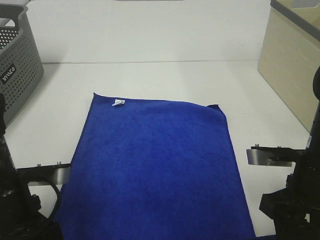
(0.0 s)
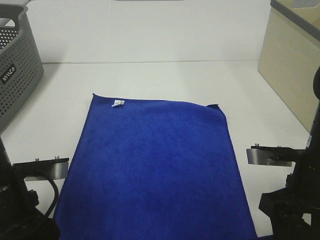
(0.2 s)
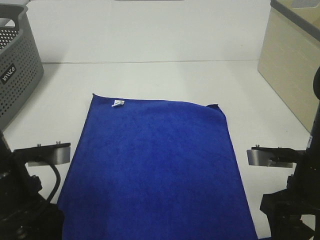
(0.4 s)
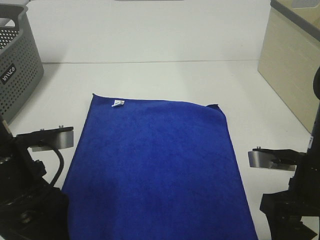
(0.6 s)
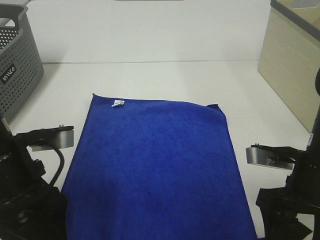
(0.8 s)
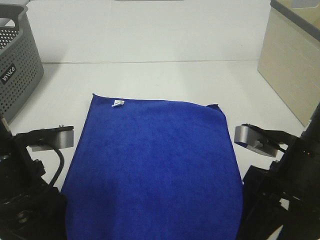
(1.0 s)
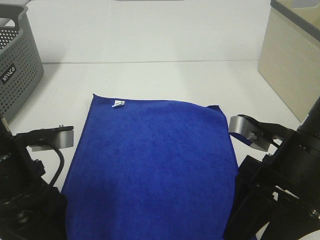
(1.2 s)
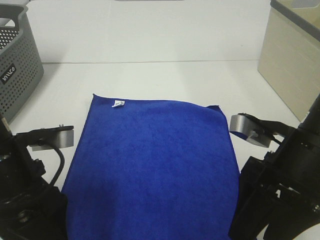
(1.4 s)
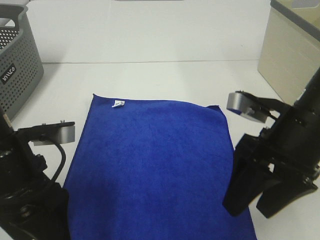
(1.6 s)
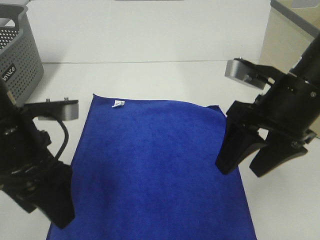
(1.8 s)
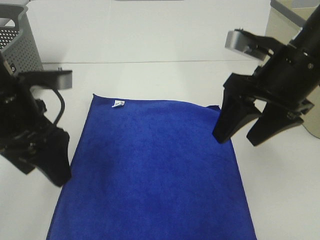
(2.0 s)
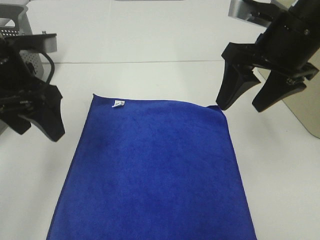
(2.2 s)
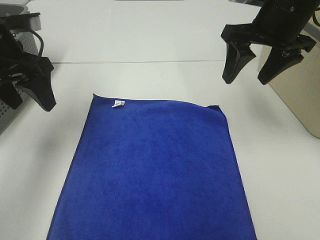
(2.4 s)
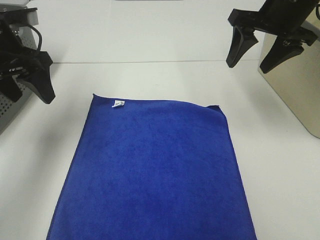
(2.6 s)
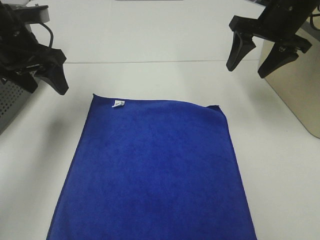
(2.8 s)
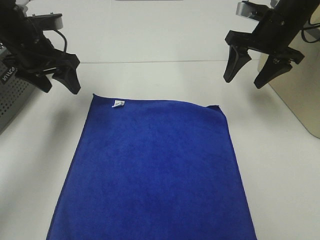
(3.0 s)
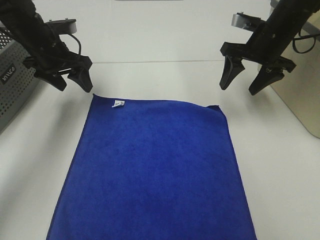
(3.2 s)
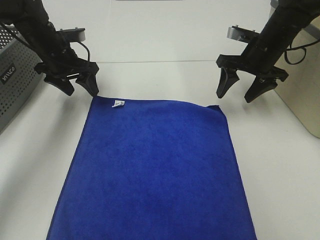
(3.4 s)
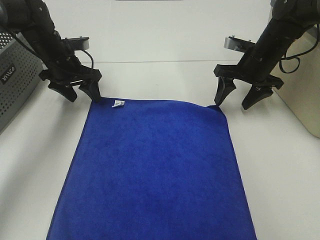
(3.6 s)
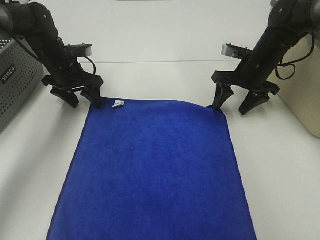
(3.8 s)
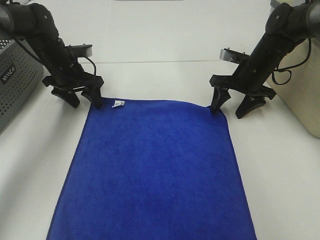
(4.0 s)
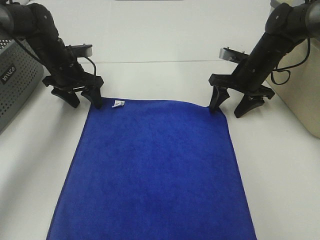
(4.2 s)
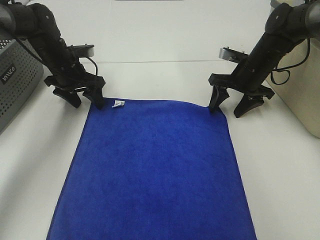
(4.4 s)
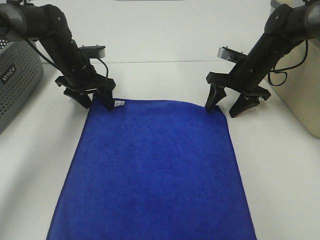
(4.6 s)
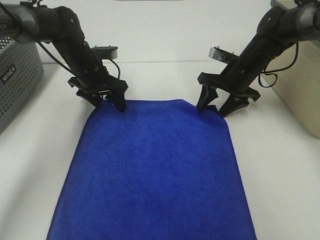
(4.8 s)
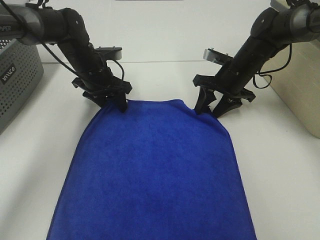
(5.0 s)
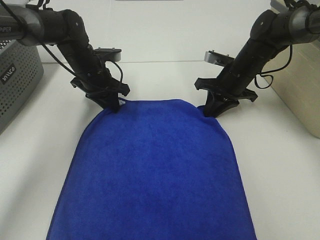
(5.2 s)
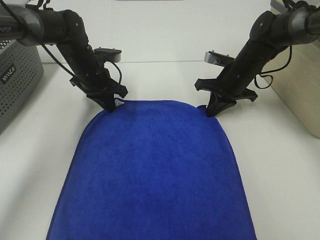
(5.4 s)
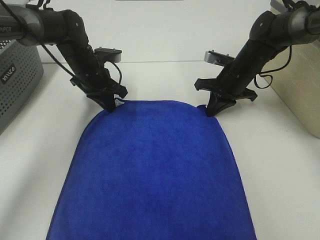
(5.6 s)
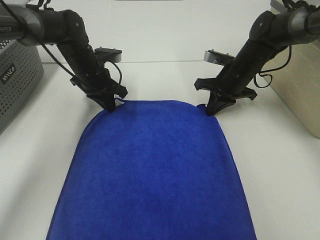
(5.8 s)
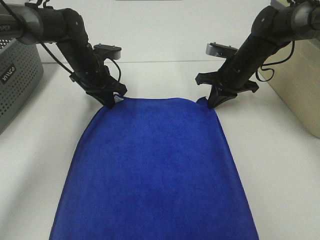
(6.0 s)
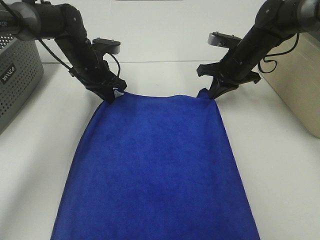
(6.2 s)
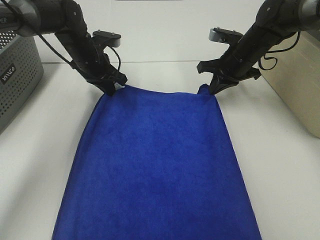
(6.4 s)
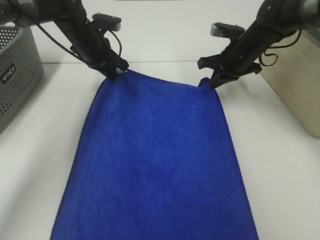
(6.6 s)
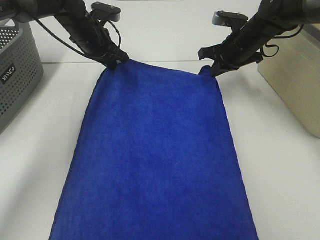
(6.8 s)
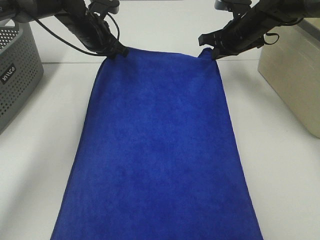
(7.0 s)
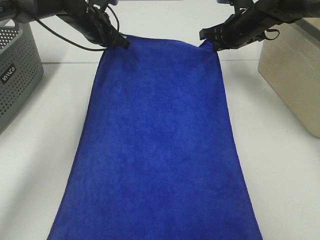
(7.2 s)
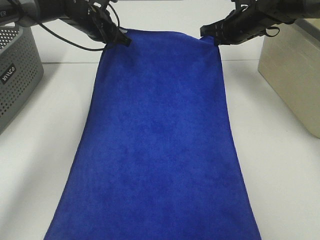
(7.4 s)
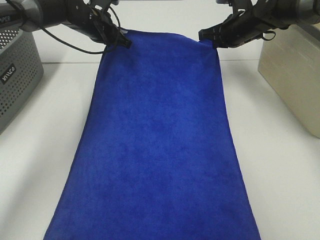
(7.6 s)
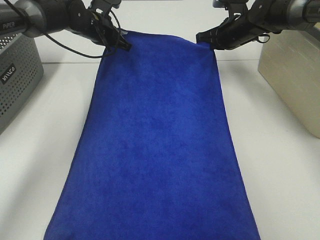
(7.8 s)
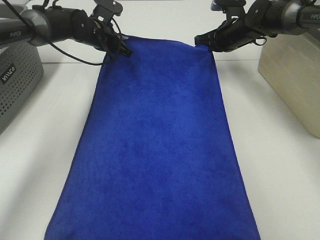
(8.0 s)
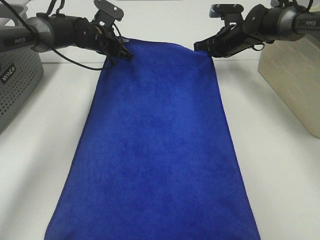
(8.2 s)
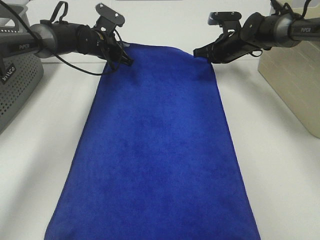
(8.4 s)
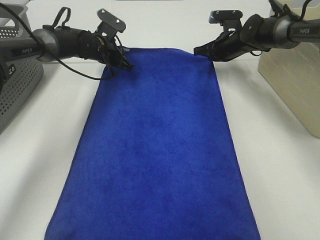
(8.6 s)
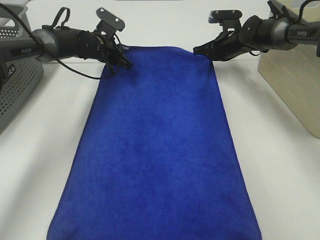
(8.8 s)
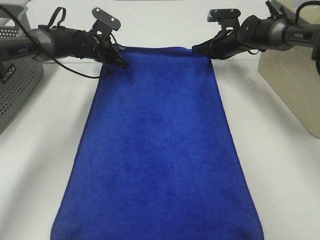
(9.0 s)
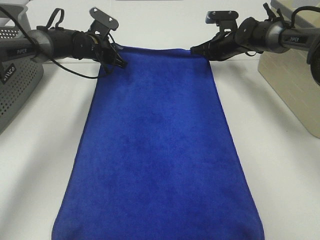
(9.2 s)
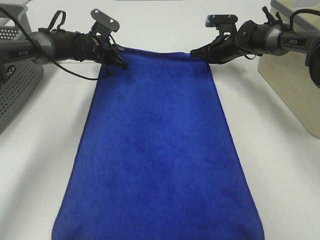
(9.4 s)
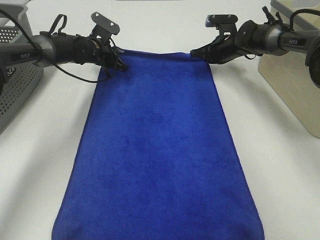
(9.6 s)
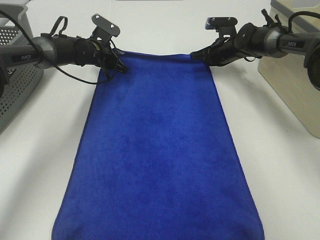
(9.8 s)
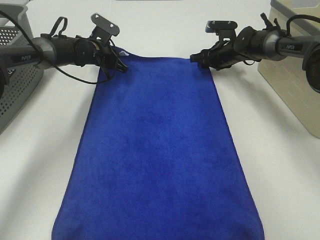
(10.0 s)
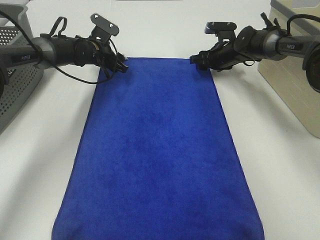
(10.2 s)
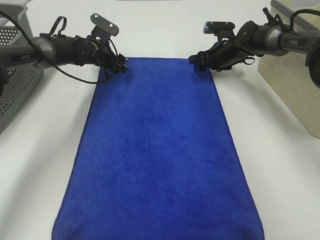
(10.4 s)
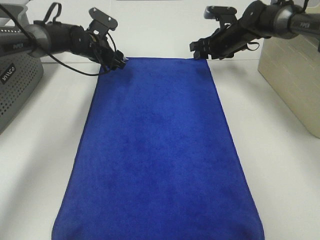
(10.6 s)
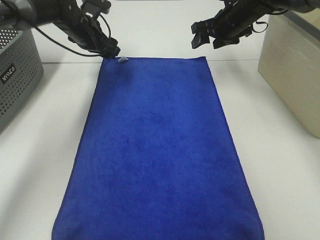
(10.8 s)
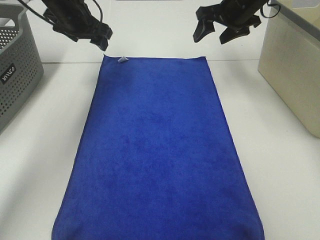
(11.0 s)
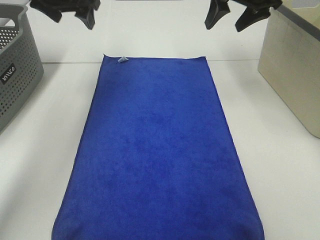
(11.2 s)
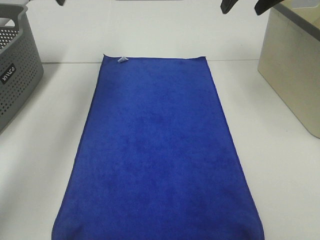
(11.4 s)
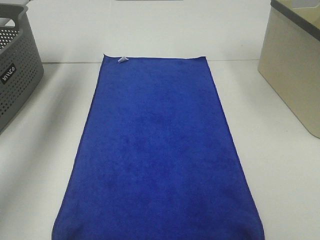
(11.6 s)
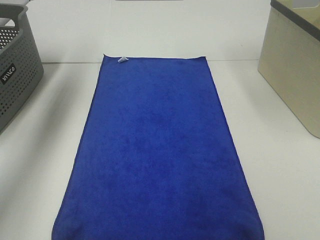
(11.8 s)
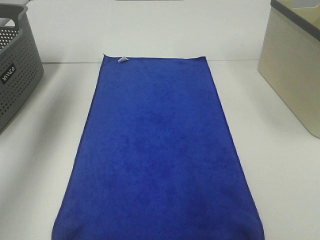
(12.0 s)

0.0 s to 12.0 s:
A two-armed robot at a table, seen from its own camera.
Task of the whole recording: Remove the towel and place it.
Step, 0.0 to 2.8 s: Left hand:adjust the blue towel.
Step, 0.0 to 2.8 s: Right hand:adjust the blue towel.
0.0 to 1.6 s: The right gripper heads upward, covering about 5 cm, while the left gripper ends up roughly 5 cm from where it was.
1.6 to 3.0 s: The grippers both shift forward by some 20 cm.
3.0 to 4.4 s: The right gripper is displaced downward by roughly 10 cm; the left gripper moves downward and forward, roughly 10 cm.
4.4 to 6.0 s: The right gripper closes; the left gripper is displaced to the right by approximately 5 cm, and closes.
6.0 to 7.6 s: The two grippers go some 10 cm forward and upward.
7.6 to 9.0 s: Both grippers travel together downward, some 5 cm.
9.0 to 10.4 s: The right gripper opens its fingers. Meanwhile the left gripper opens its fingers.
10.4 to 12.0 s: The right gripper heads upward and backward, covering some 40 cm. Meanwhile the left gripper is displaced upward, backward and to the left by roughly 35 cm.

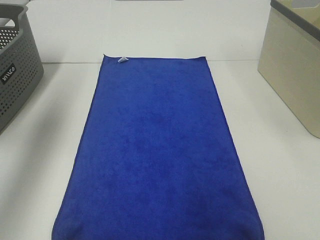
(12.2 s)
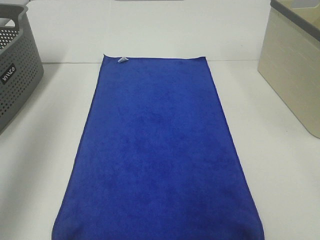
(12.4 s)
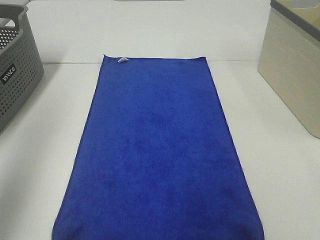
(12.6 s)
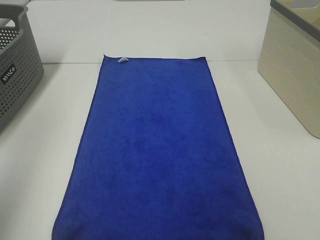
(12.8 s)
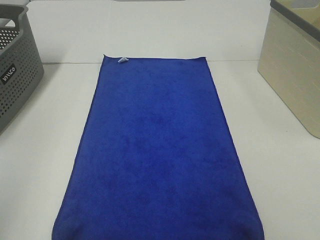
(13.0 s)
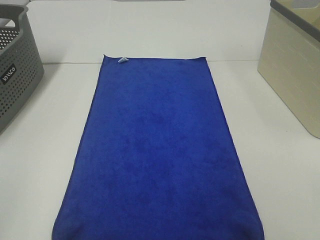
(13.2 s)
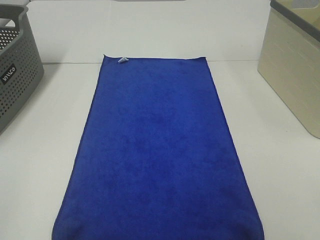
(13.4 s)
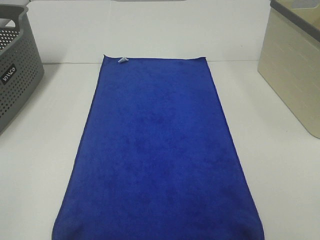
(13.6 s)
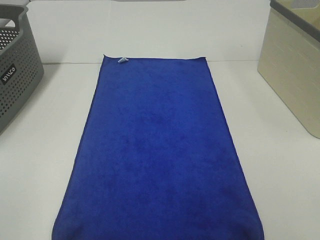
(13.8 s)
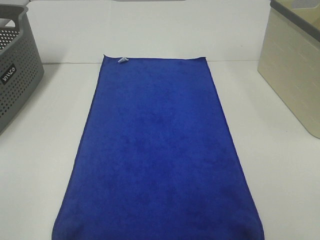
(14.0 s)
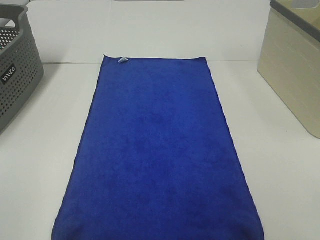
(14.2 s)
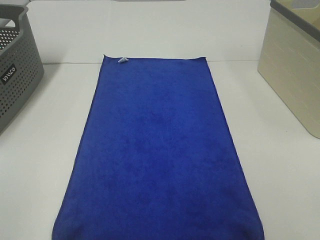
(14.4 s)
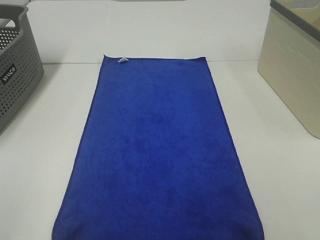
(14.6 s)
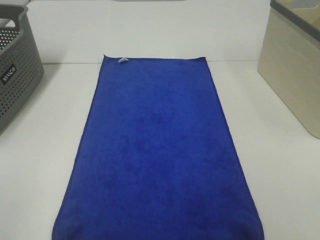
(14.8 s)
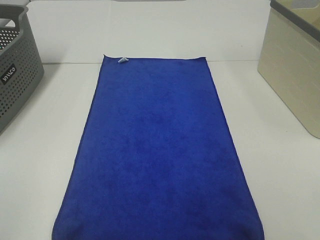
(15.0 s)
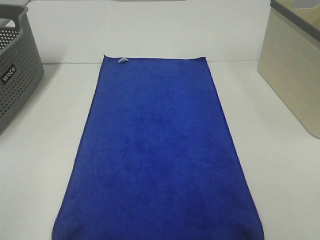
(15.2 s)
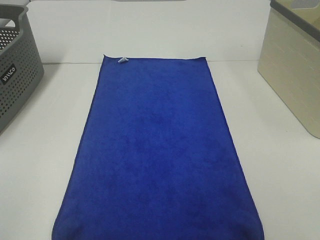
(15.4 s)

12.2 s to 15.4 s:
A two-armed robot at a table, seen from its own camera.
Task of the whole recording: Remove the towel and place it.
12.2 to 13.8 s: The left gripper travels backward by some 35 cm.

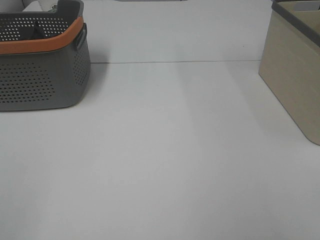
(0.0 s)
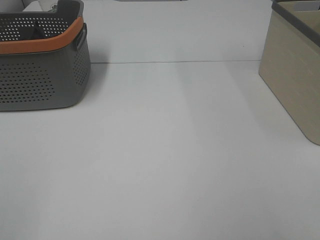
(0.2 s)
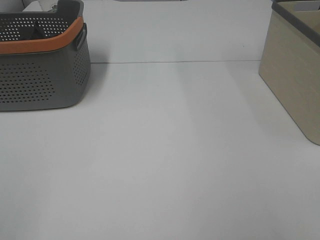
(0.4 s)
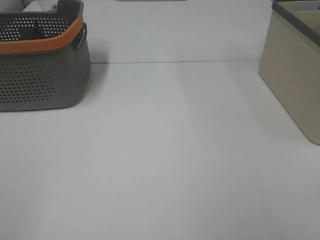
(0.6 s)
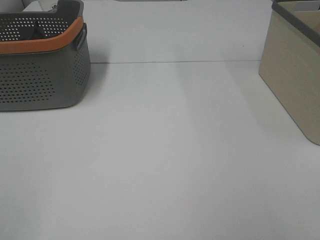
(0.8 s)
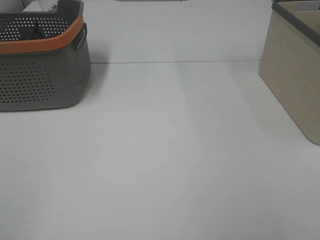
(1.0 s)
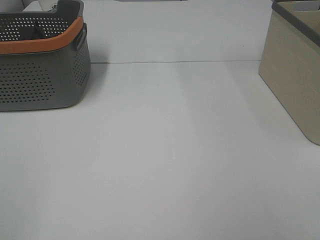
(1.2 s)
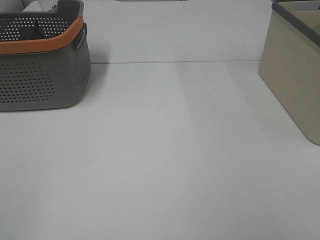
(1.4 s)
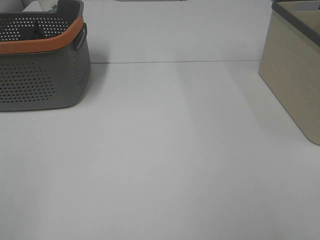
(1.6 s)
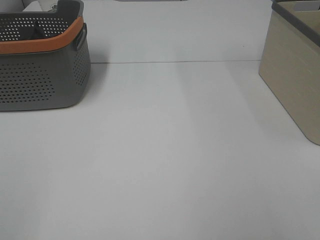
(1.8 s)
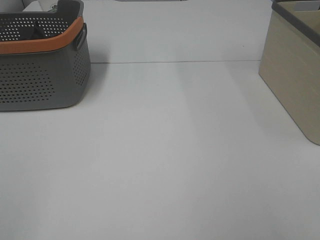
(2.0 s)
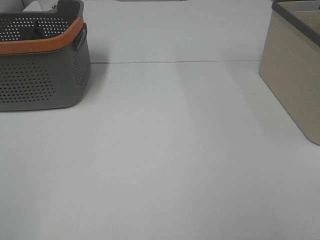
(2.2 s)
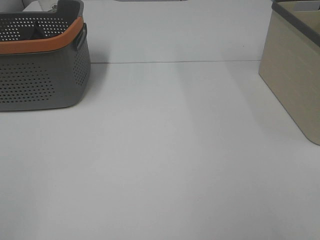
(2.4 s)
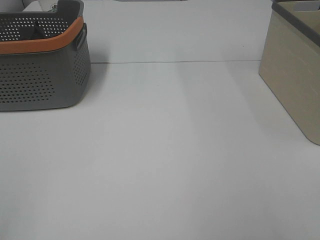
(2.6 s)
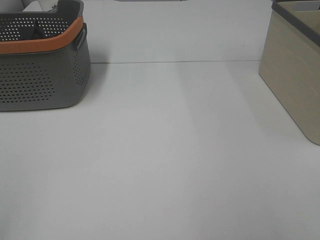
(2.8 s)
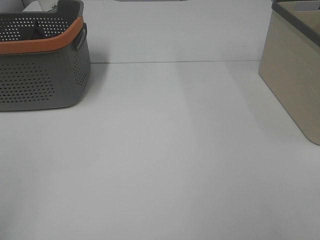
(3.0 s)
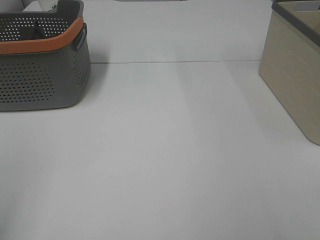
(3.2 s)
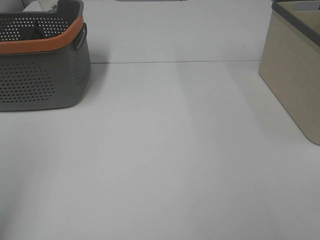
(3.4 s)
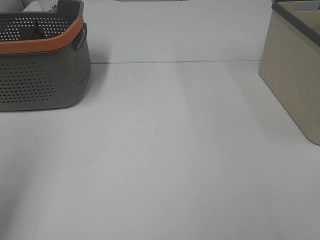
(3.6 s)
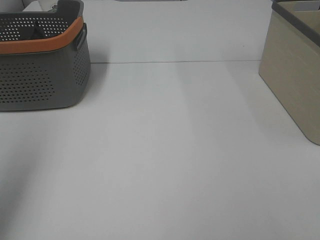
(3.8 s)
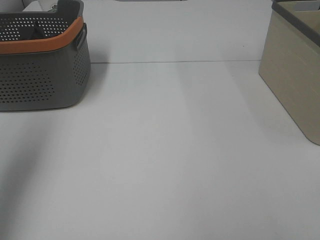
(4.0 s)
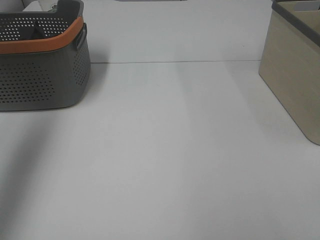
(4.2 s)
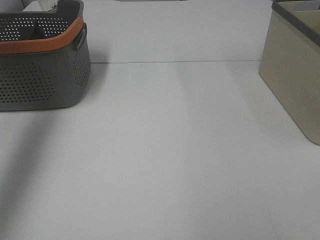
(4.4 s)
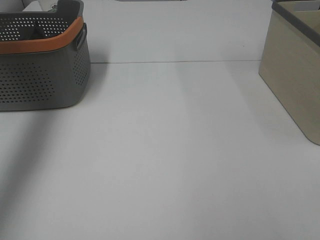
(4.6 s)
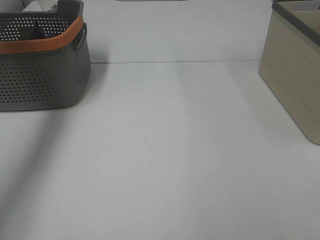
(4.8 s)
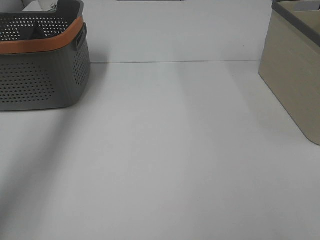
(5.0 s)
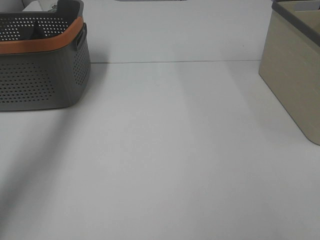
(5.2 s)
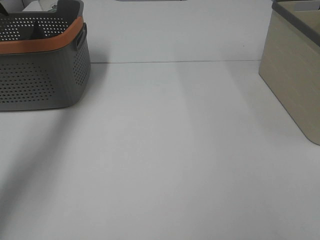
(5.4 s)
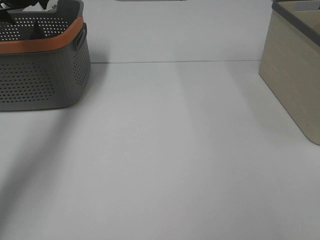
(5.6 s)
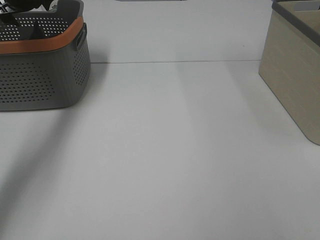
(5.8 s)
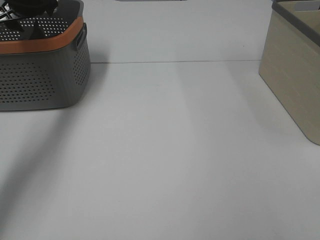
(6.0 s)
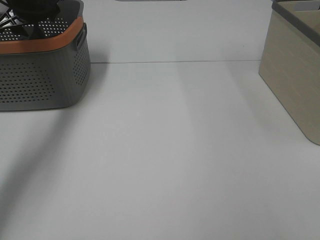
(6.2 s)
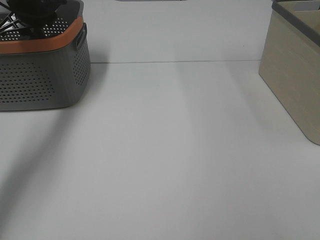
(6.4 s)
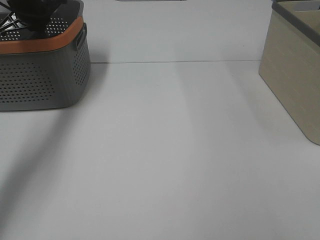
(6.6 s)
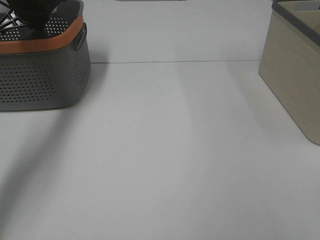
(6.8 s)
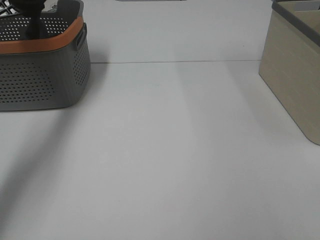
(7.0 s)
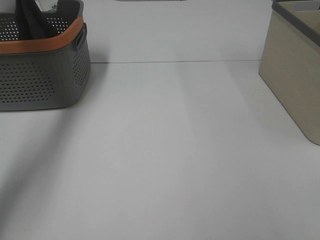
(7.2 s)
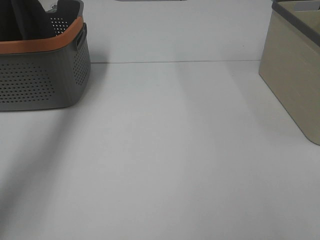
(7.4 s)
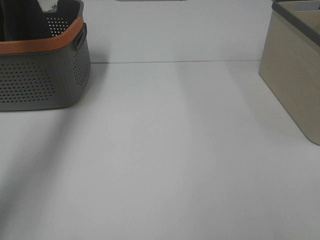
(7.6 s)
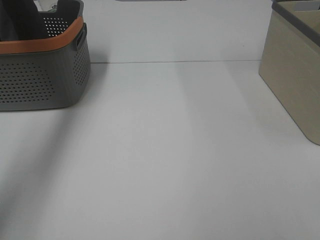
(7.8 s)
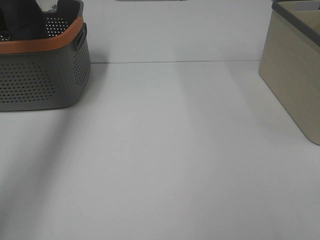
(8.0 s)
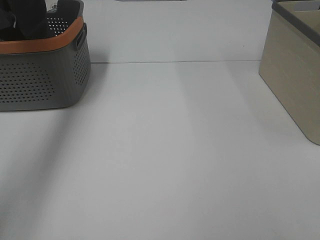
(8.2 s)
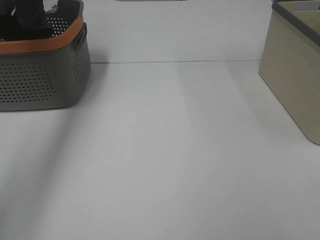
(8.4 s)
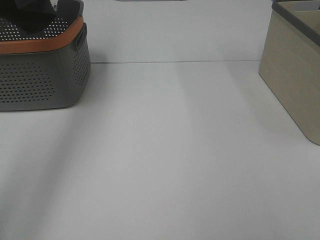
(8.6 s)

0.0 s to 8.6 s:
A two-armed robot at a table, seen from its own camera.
Task of the whole recording: Remove the towel and place it.
0.0 to 1.4 s: Both grippers stay about where they are.
2.8 to 4.4 s: The left gripper heads forward and upward, covering about 35 cm.
4.4 to 5.8 s: The left gripper moves forward and downward, about 25 cm.
5.8 to 7.2 s: The left gripper moves upward, about 5 cm, and closes its fingers.
7.2 to 8.6 s: The left gripper heads upward and backward, covering some 25 cm.
